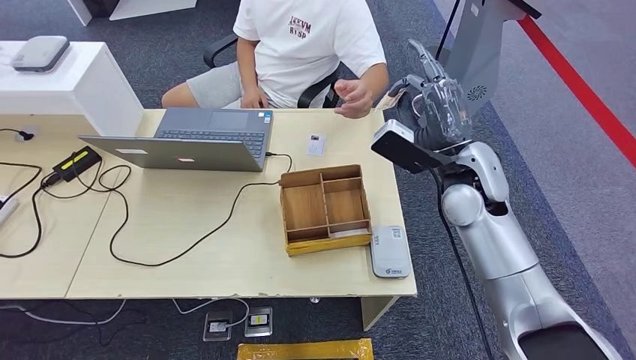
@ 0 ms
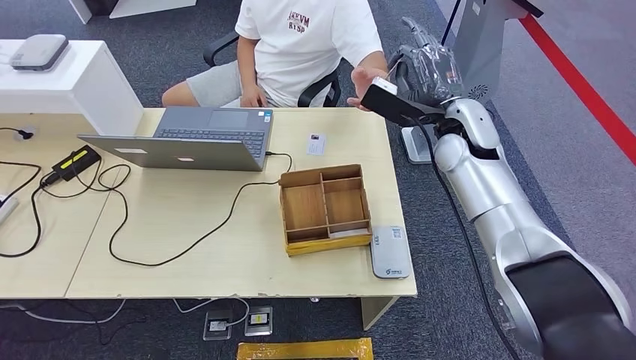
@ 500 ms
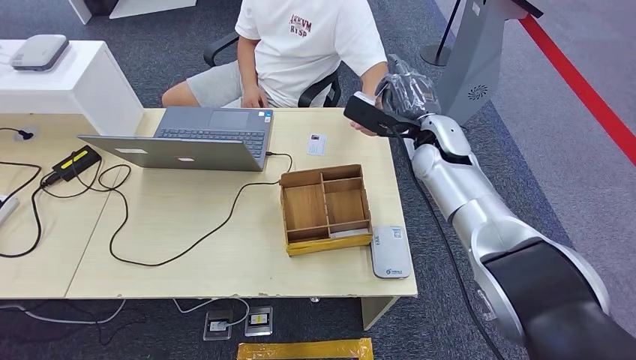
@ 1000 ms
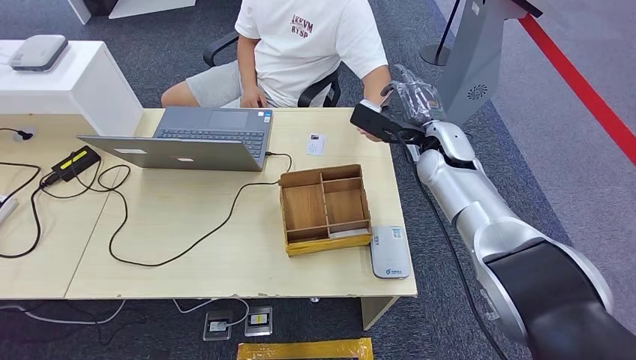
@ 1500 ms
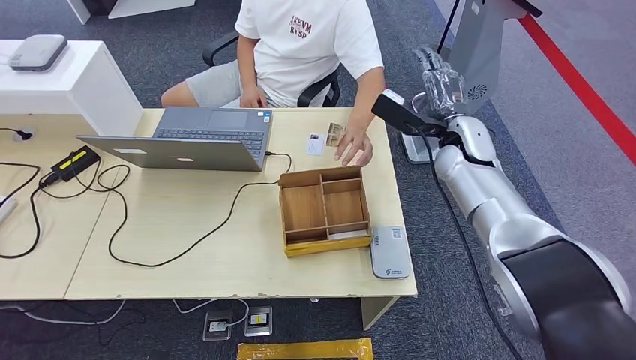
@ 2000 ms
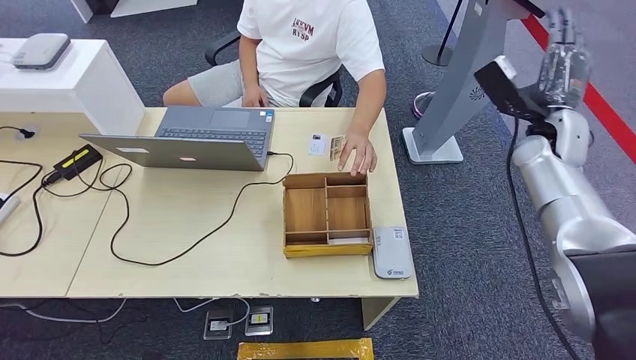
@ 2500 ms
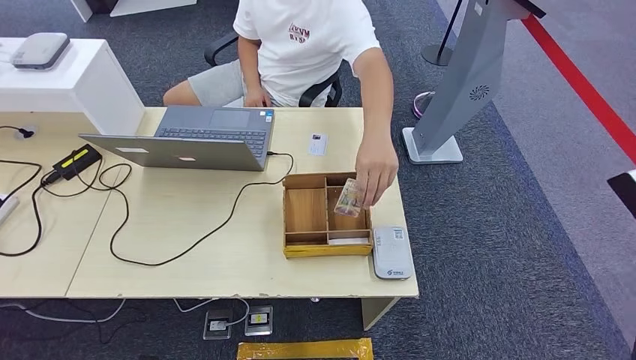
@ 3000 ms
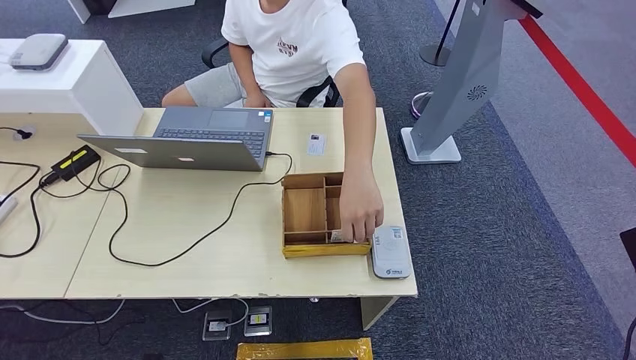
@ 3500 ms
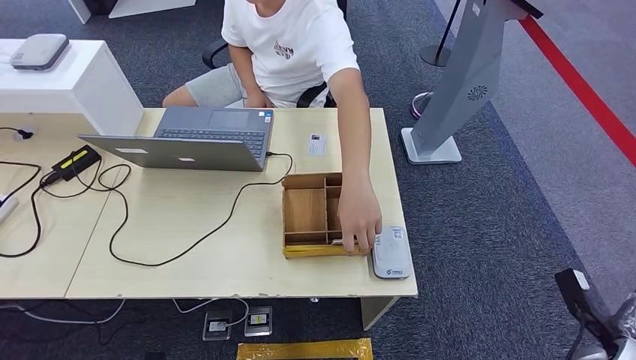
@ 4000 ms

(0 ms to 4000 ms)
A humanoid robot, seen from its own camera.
Step, 500 ms - 4000 ms: Hand the room key to the person.
0 ms - 2000 ms: The right hand goes some 10 cm forward.
2000 ms - 4000 ms: The right hand travels backward, to the right and downward by some 50 cm.

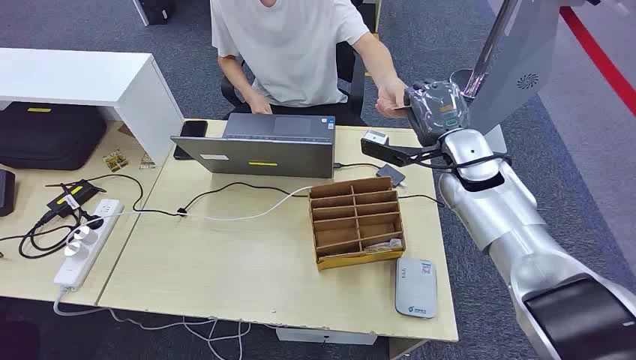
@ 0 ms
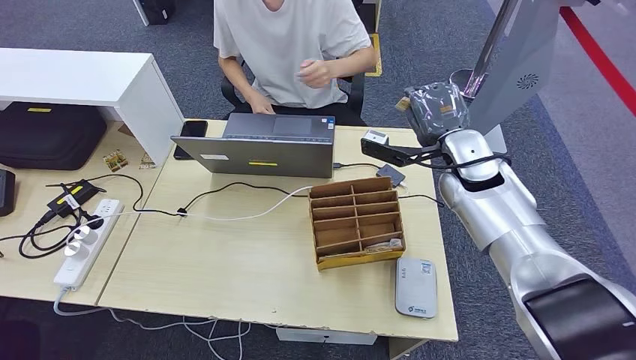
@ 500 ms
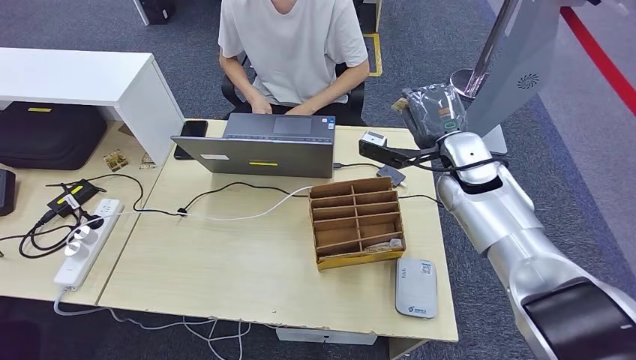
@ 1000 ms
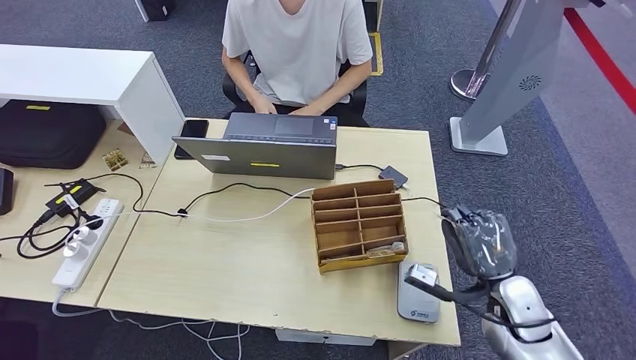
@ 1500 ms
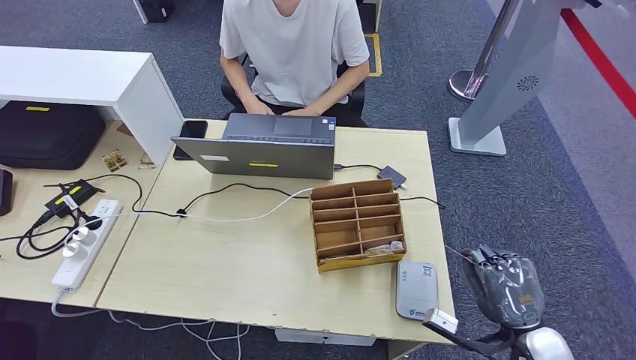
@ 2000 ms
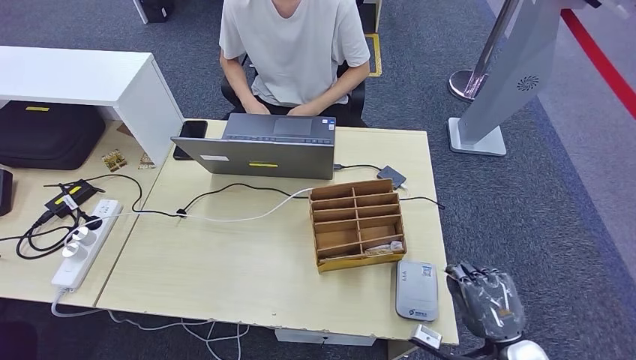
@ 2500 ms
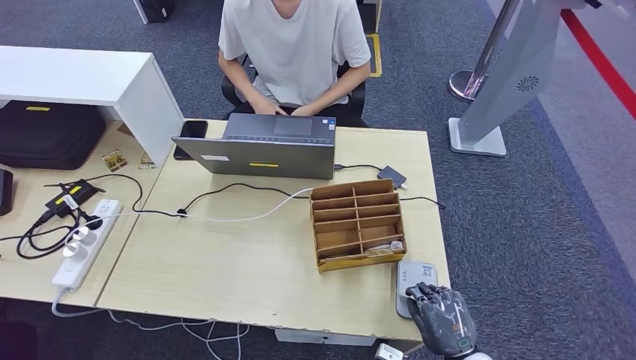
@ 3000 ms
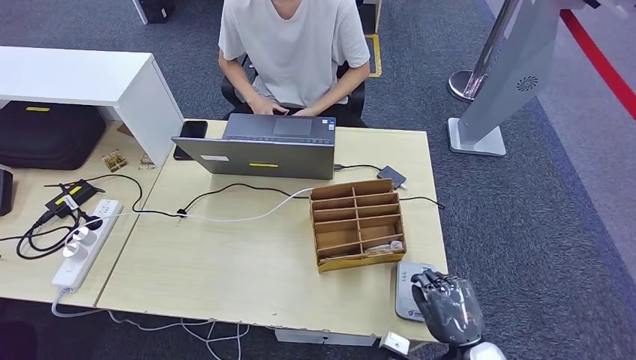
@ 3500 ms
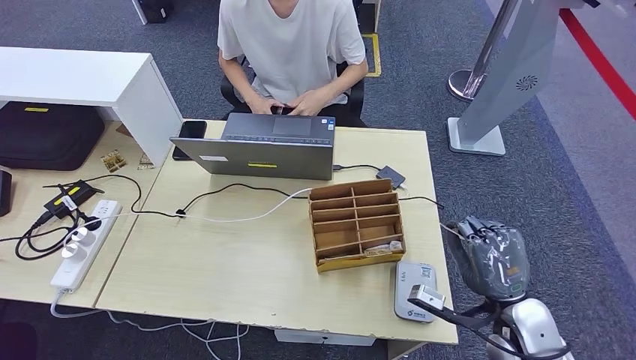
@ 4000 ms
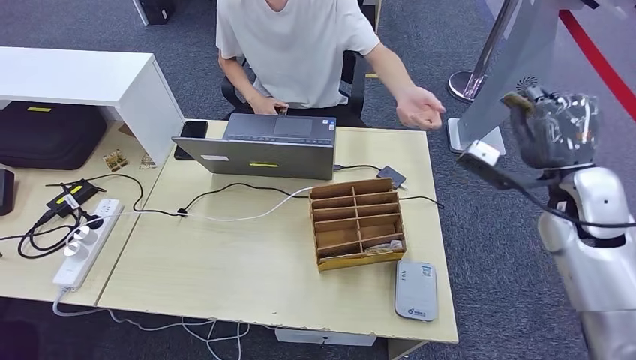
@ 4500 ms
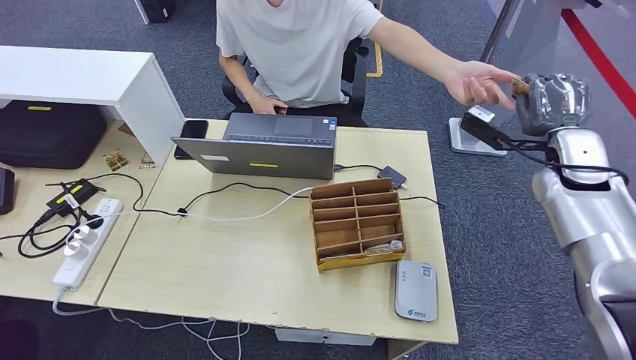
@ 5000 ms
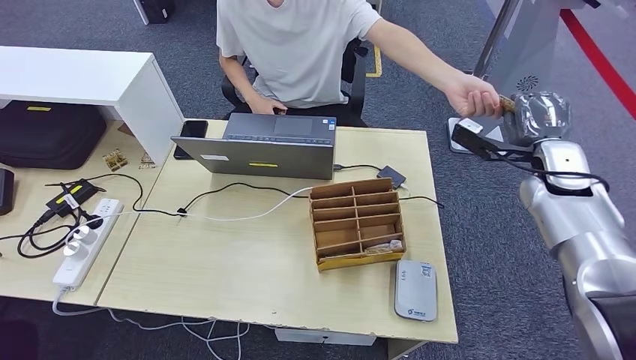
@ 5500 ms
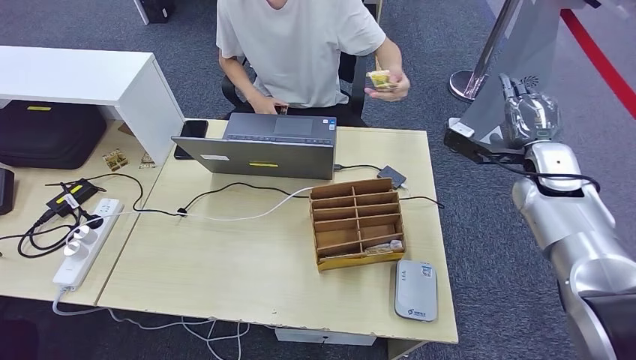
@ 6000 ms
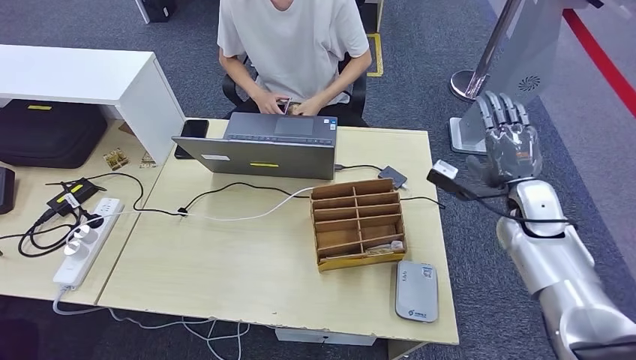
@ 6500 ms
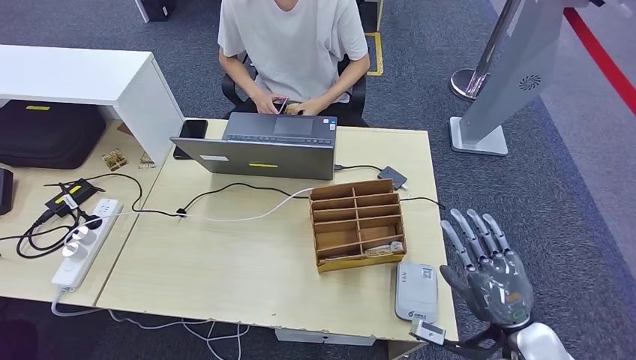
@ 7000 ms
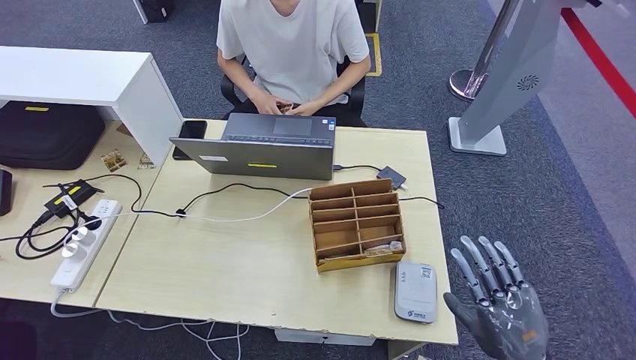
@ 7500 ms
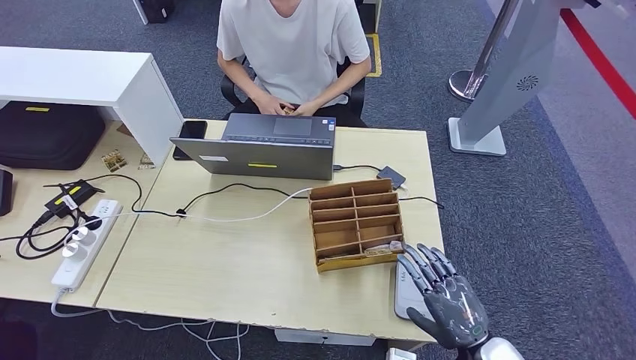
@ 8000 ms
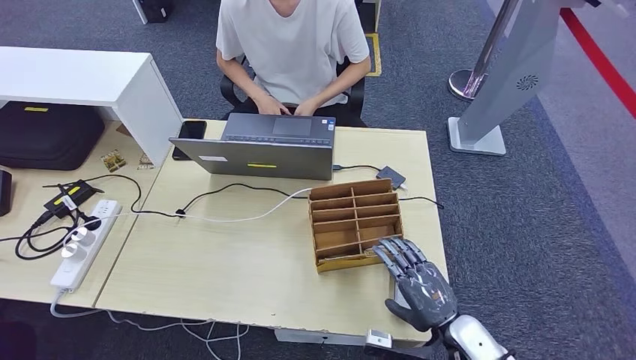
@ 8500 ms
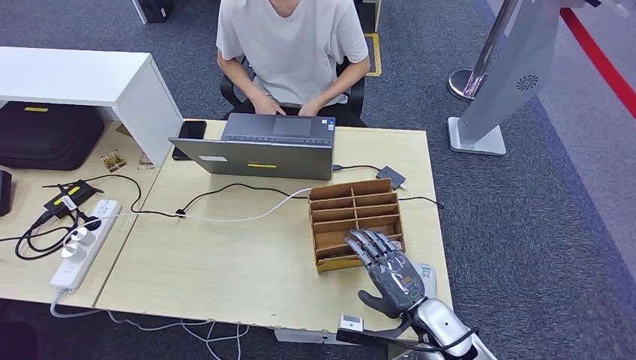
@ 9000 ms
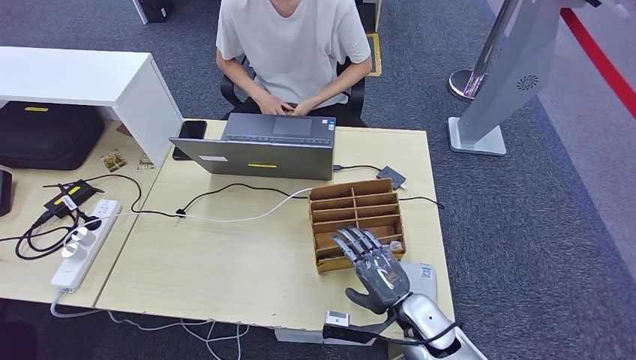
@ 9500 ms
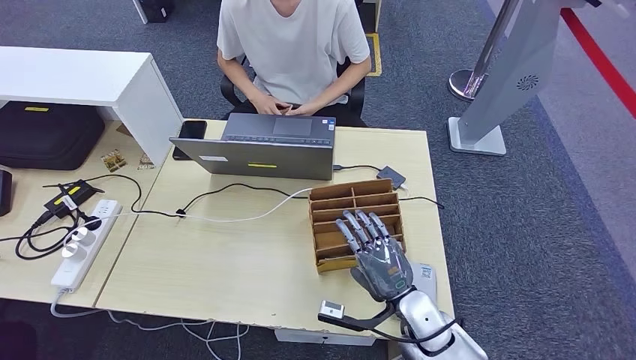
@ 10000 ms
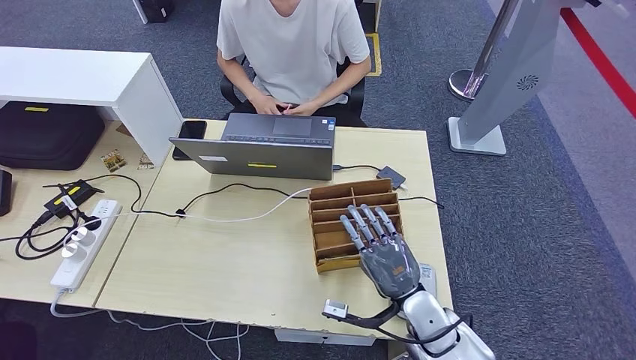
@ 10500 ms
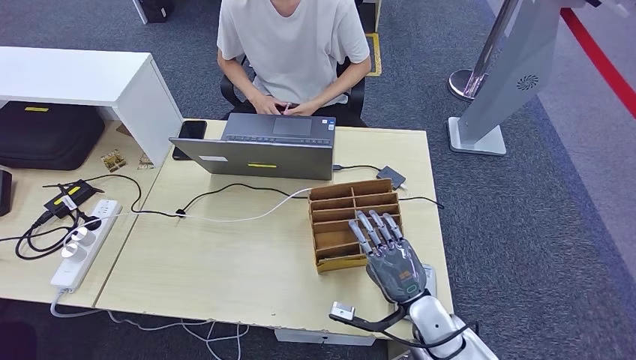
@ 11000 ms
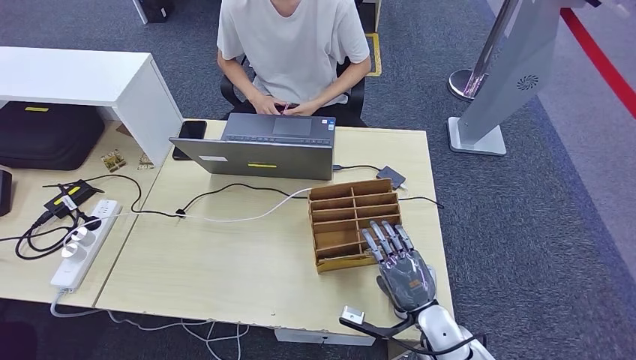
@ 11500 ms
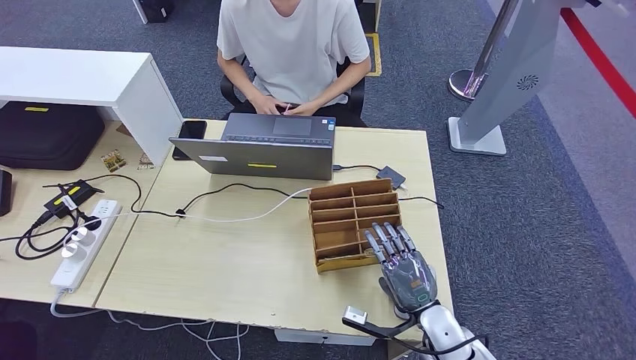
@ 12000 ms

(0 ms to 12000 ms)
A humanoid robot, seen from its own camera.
Step, 0 ms - 500 ms: Take the ID card from the person's hand.
Step, 1000 ms - 4000 ms: Place the ID card on the card reader.
Step, 4500 ms - 10000 ms: Hand the ID card to the person.
2000 ms - 4000 ms: The right hand reaches approximately 5 cm downward, then returns.
4000 ms - 6000 ms: The right hand moves forward and upward, approximately 25 cm.
6000 ms - 8000 ms: The right hand is displaced backward and downward by about 35 cm.
8000 ms - 10000 ms: The right hand shifts some 15 cm to the left and forward.
10000 ms - 12000 ms: The right hand changes place by about 5 cm.

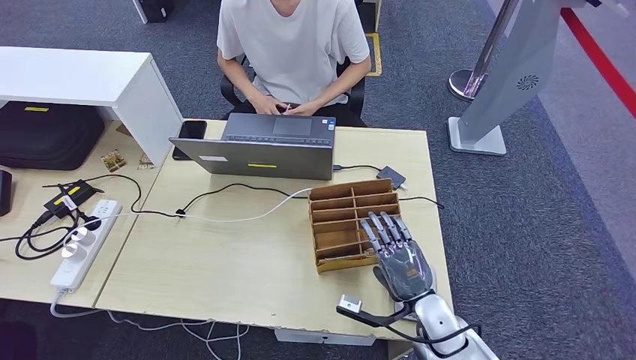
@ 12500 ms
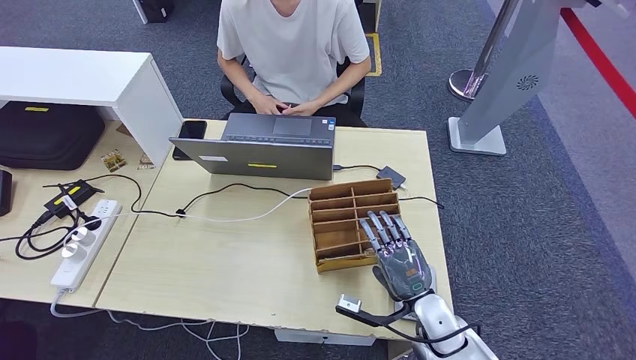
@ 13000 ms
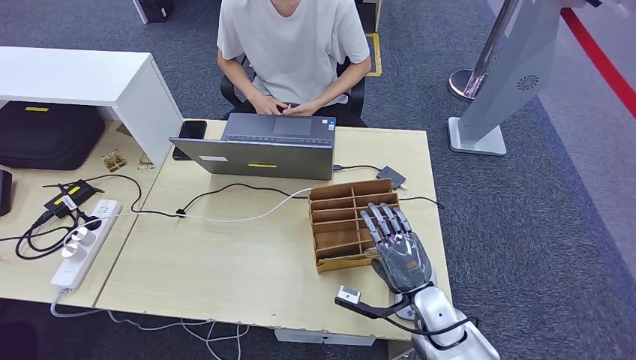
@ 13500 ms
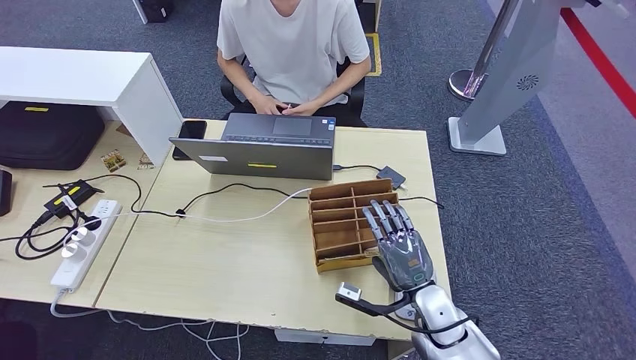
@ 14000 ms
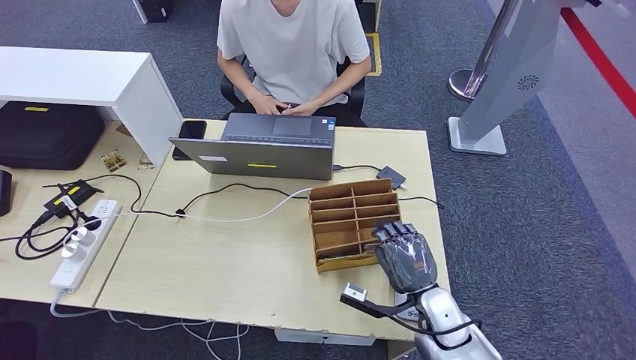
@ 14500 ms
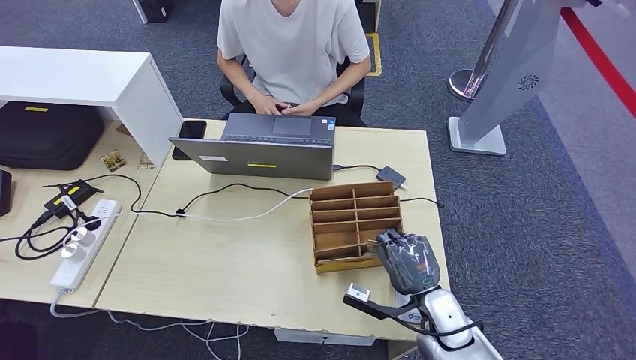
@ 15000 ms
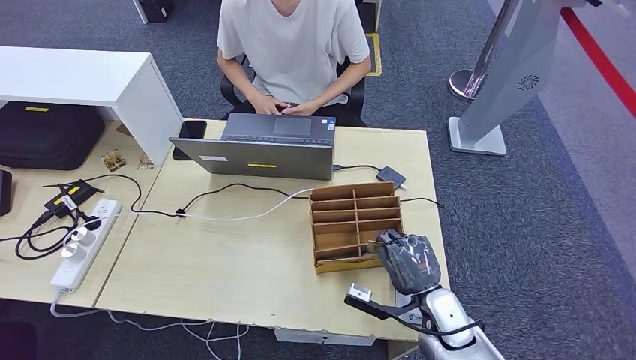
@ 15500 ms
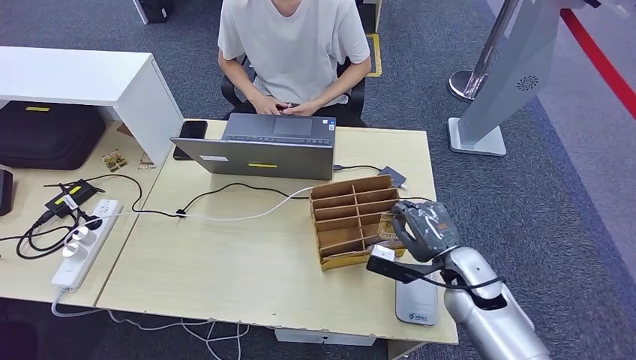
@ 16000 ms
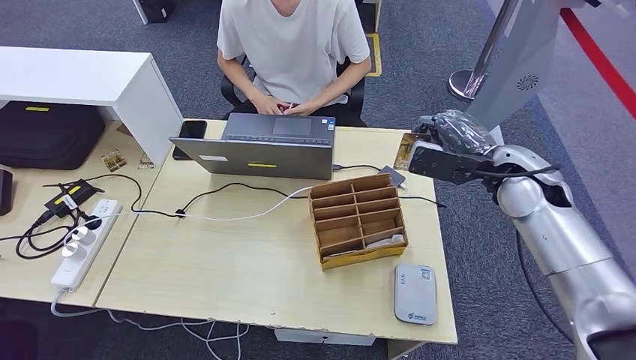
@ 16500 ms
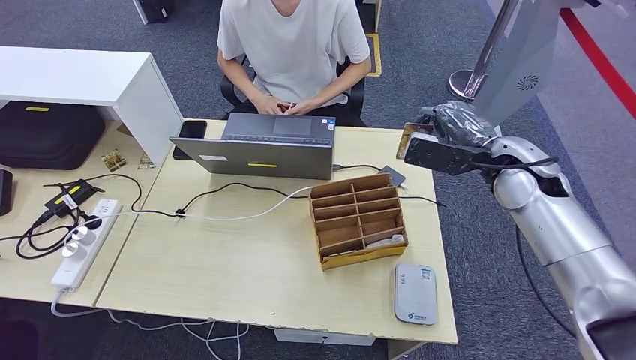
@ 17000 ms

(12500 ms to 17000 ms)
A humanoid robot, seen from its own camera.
Step, 12500 ms - 15500 ms: Pick up the room key from the key card box.
12500 ms - 14500 ms: There are only small adjustments of the hands.
14500 ms - 17000 ms: The right hand shifts about 30 cm upward, forward and to the right.
